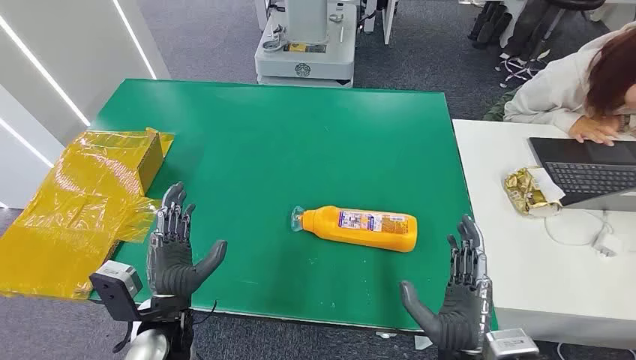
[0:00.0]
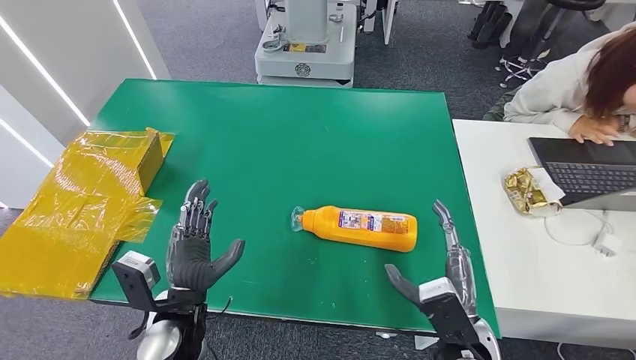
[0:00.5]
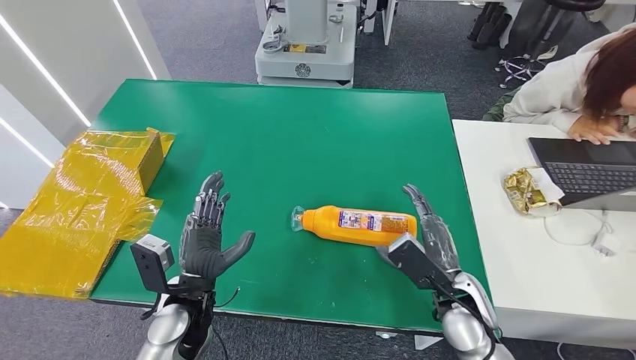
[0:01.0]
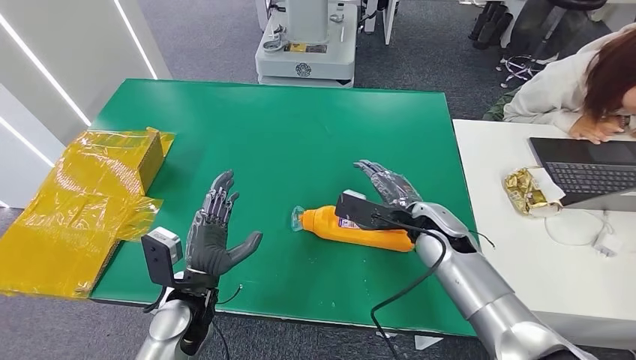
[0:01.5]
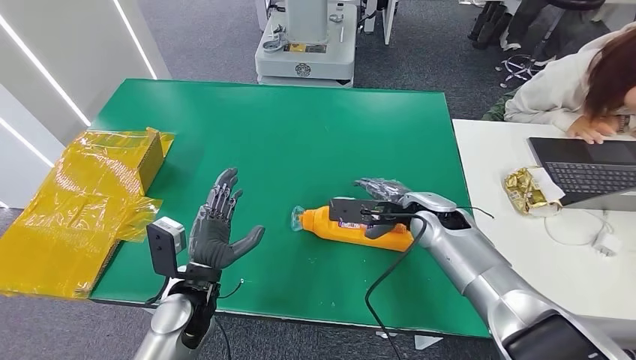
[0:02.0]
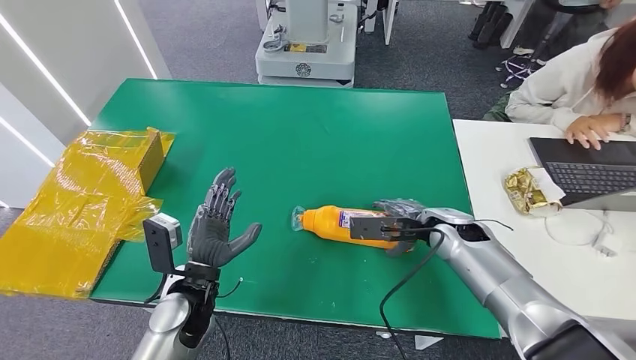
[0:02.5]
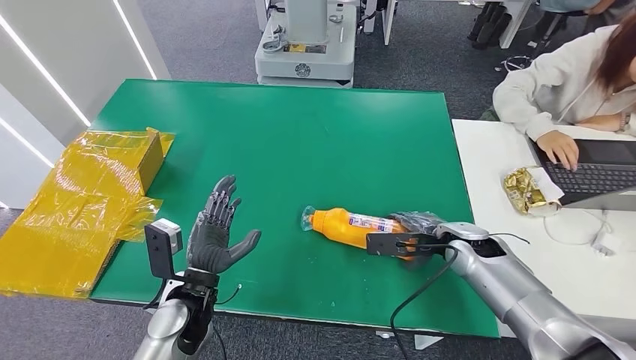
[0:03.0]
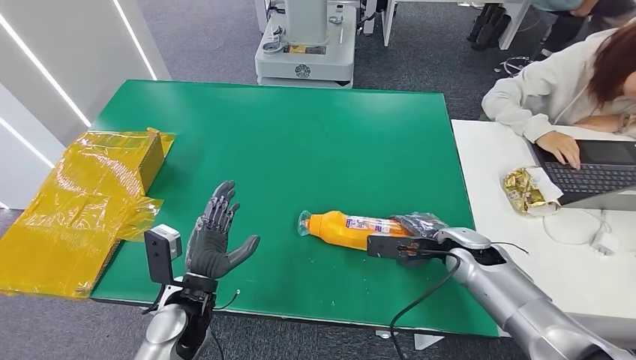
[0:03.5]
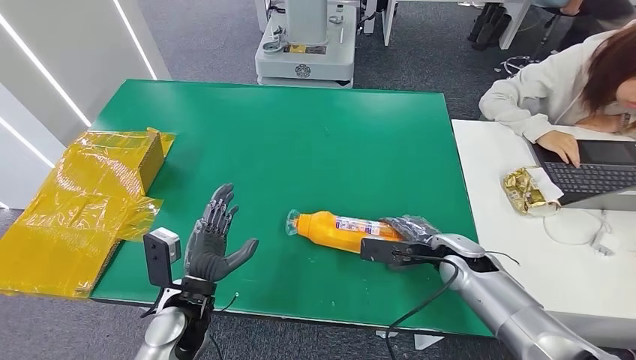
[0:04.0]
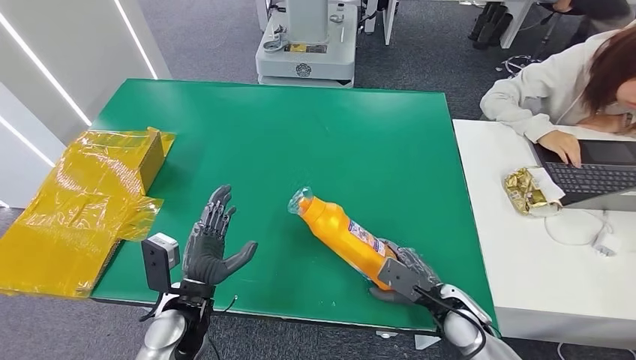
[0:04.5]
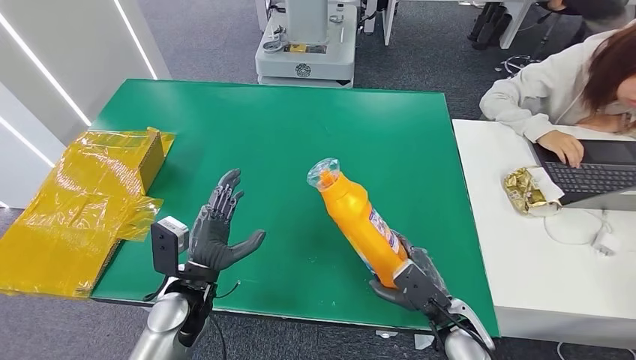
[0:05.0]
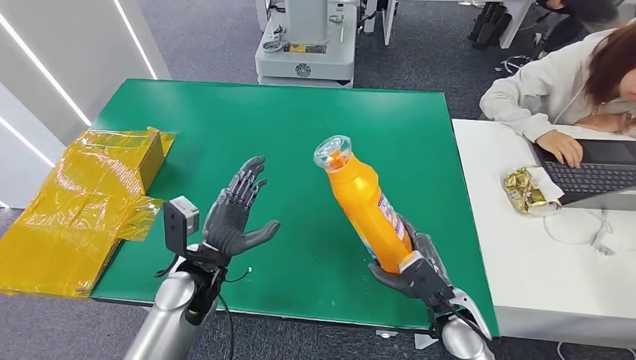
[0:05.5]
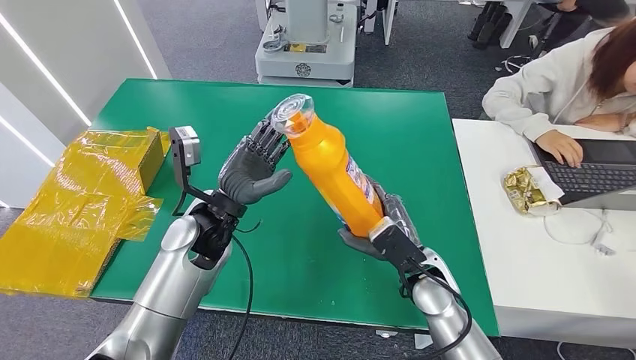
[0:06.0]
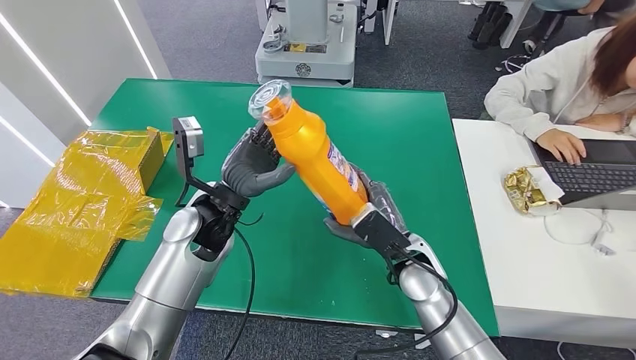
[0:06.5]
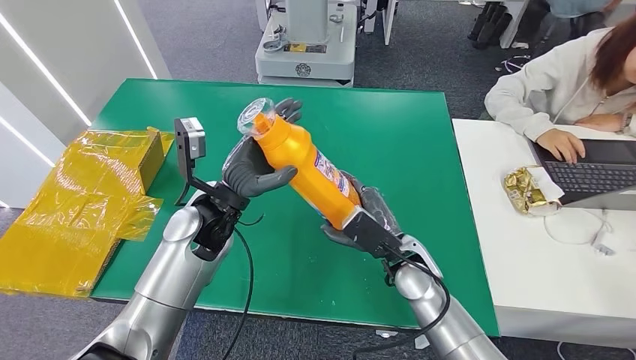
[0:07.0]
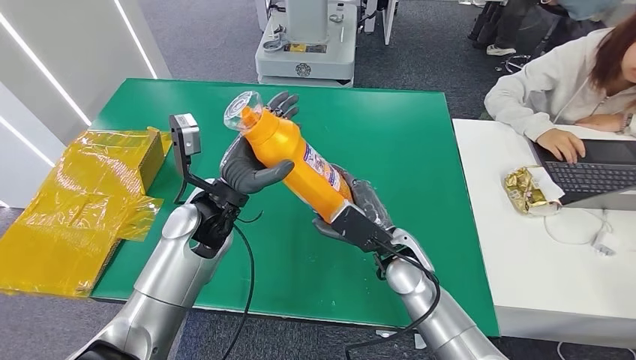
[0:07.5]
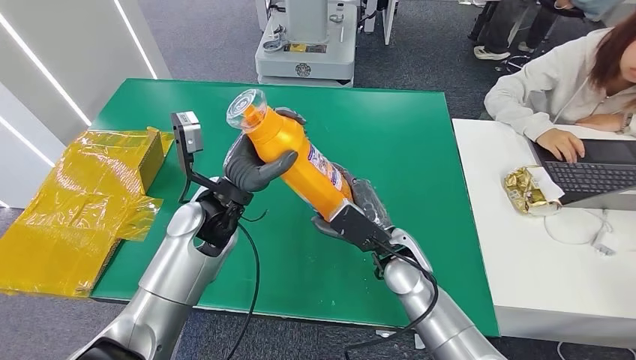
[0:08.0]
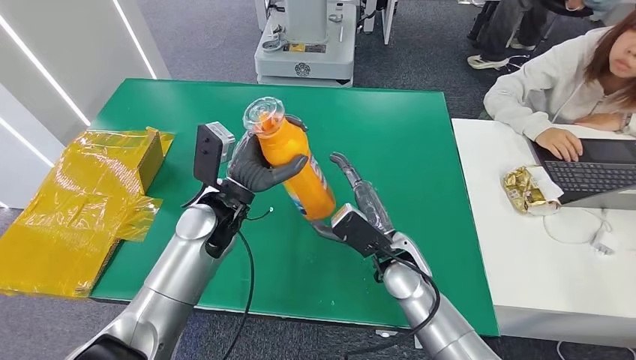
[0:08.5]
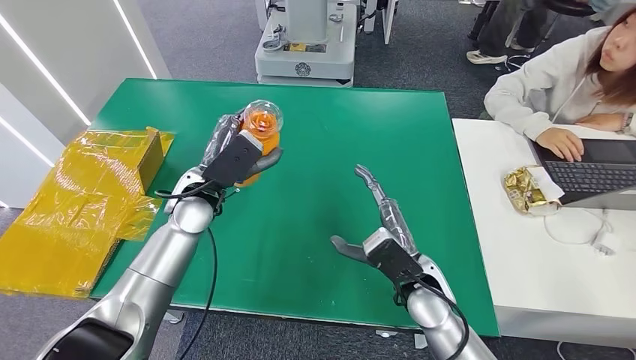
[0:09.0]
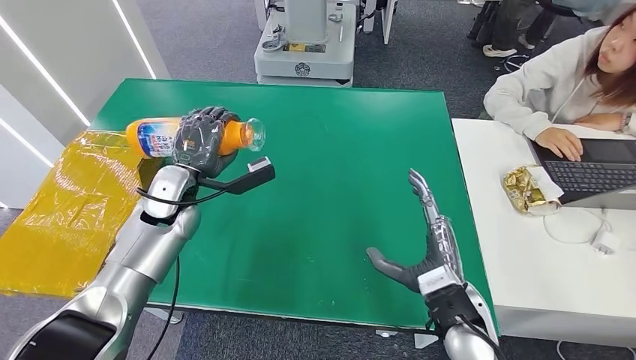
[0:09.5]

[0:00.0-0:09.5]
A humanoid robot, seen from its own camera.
Step, 0:00.0 to 0:05.0: Pick up the bottle from the table.
0:02.0 to 0:04.0: The right hand goes approximately 10 cm to the right and downward.
0:04.0 to 0:05.5: The right hand heads backward, covering roughly 10 cm. Meanwhile the left hand changes place by approximately 5 cm.
0:05.5 to 0:07.5: The left hand moves upward and forward, some 10 cm; the right hand heads to the left, forward and upward, covering approximately 15 cm.

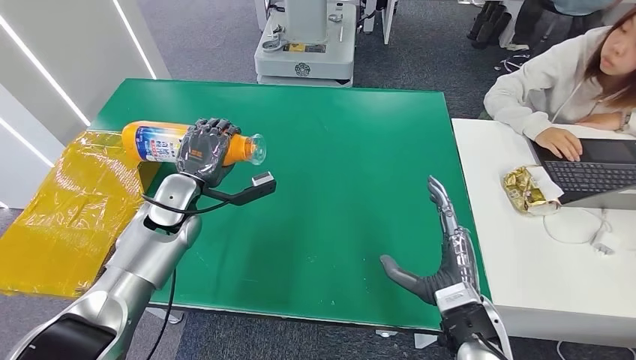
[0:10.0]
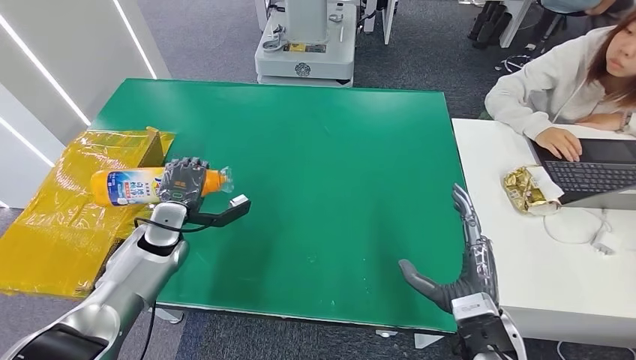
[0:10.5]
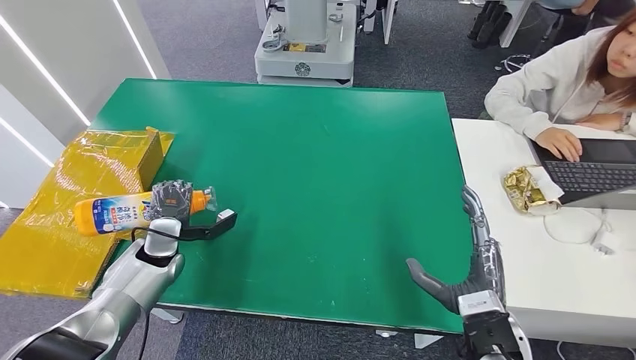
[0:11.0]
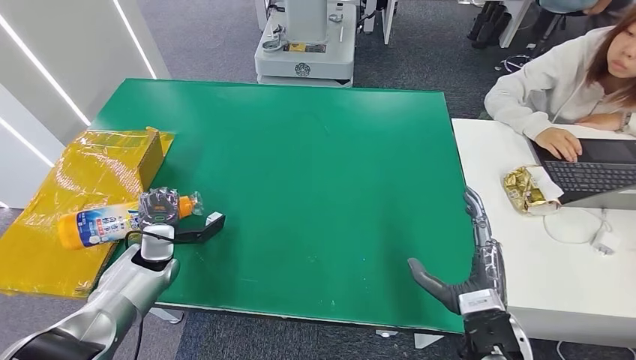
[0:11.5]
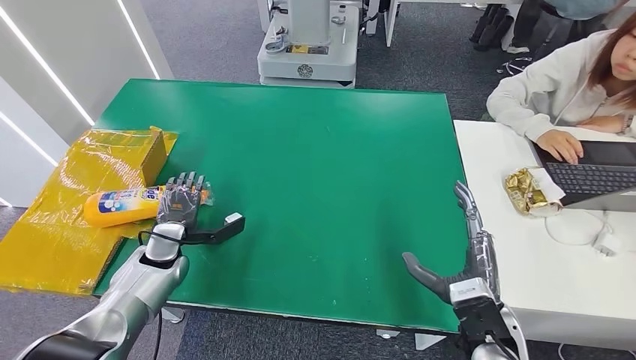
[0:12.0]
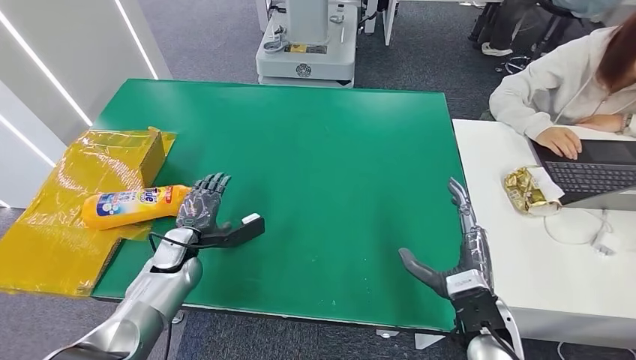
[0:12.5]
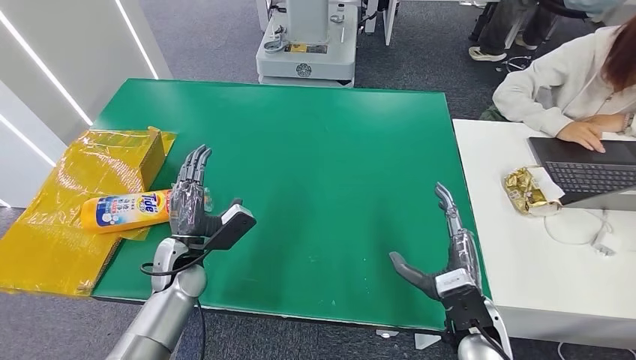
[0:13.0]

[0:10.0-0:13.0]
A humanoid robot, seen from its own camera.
Step, 0:10.0 to 0:13.0: Turn the bottle to the front side.
0:10.0 to 0:11.5: The left hand is displaced downward and to the left by about 15 cm.
0:11.5 to 0:13.0: The left hand travels to the right by approximately 10 cm.
